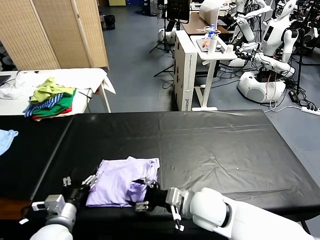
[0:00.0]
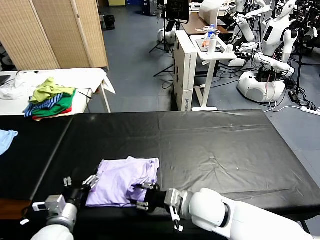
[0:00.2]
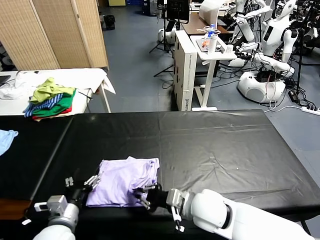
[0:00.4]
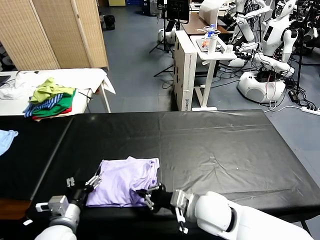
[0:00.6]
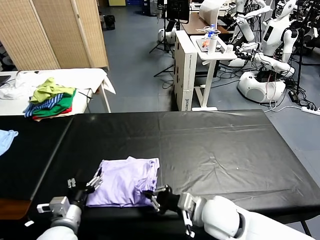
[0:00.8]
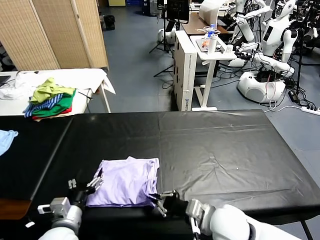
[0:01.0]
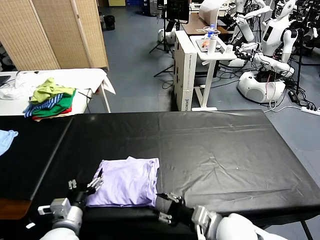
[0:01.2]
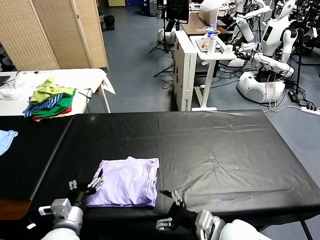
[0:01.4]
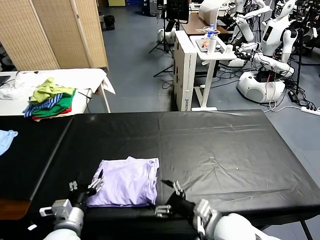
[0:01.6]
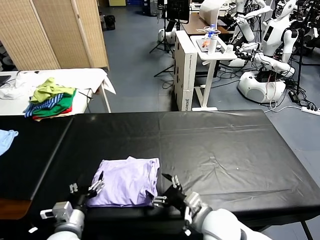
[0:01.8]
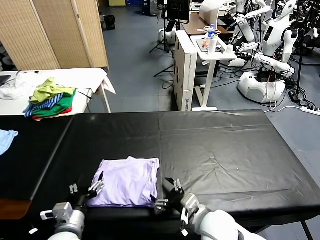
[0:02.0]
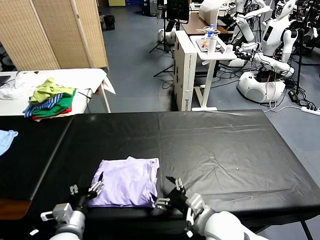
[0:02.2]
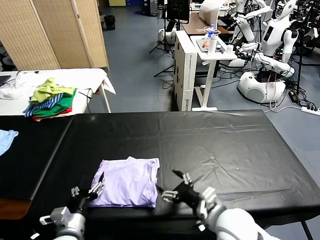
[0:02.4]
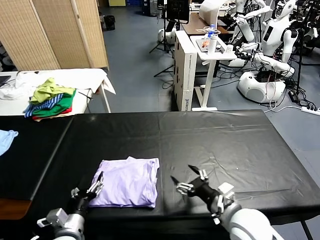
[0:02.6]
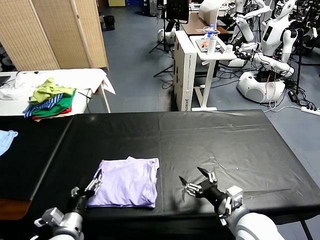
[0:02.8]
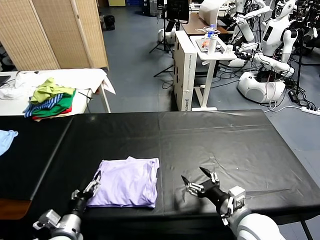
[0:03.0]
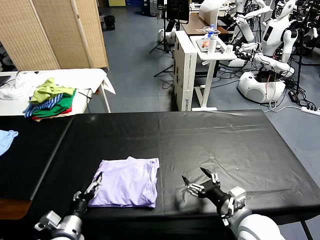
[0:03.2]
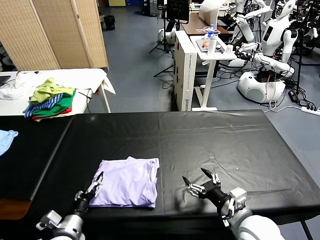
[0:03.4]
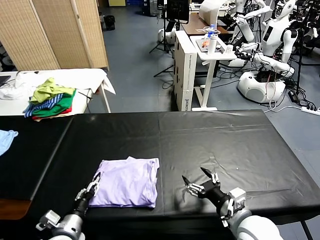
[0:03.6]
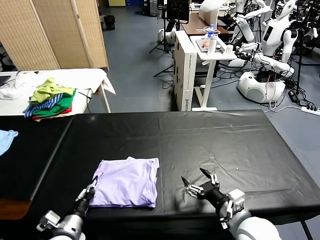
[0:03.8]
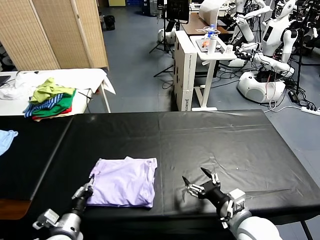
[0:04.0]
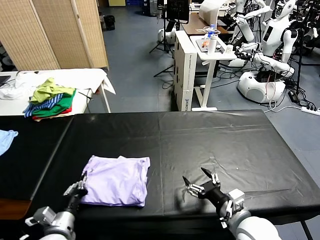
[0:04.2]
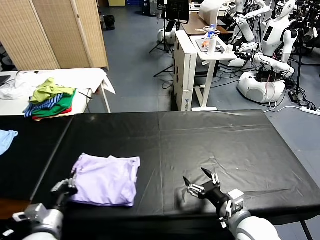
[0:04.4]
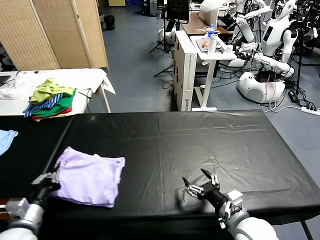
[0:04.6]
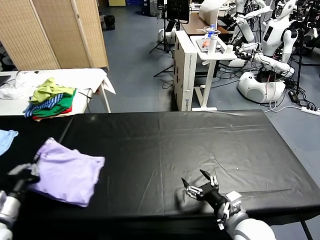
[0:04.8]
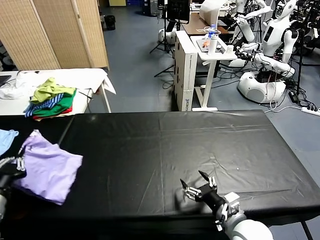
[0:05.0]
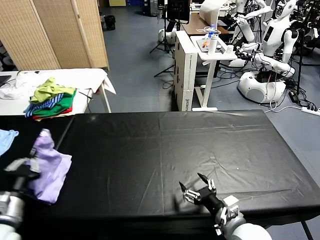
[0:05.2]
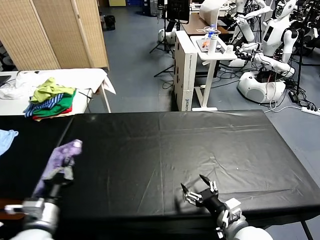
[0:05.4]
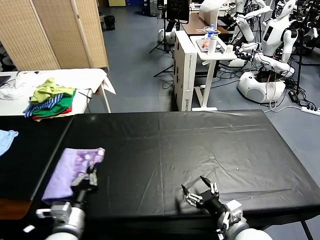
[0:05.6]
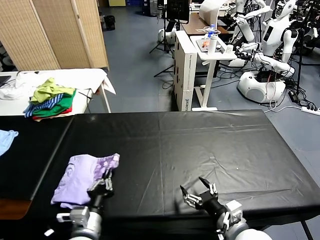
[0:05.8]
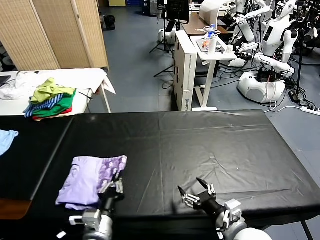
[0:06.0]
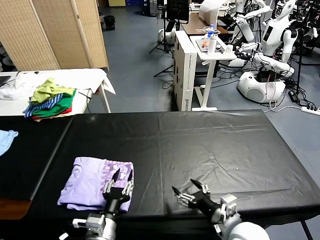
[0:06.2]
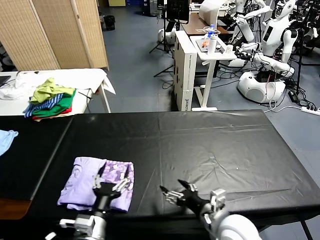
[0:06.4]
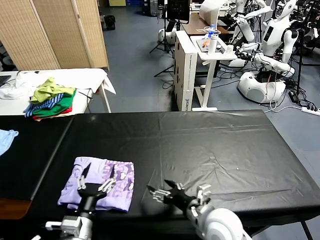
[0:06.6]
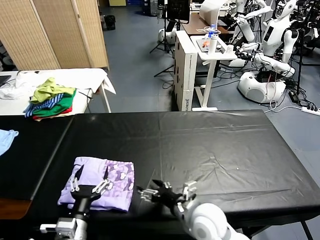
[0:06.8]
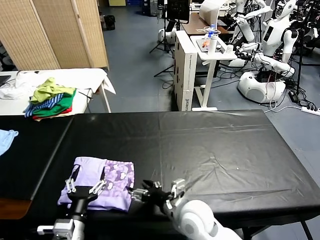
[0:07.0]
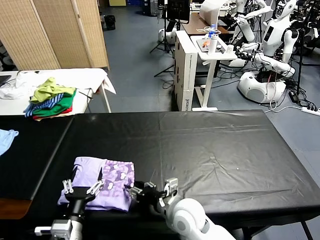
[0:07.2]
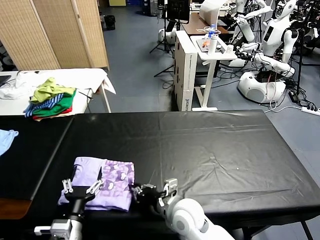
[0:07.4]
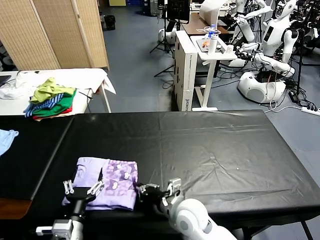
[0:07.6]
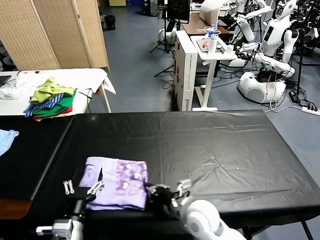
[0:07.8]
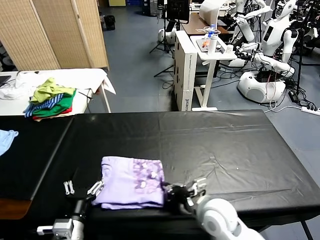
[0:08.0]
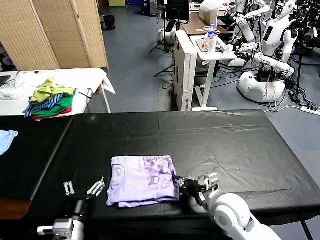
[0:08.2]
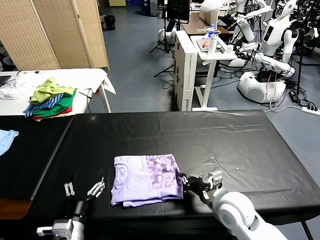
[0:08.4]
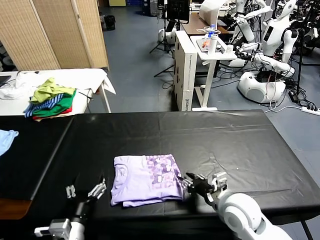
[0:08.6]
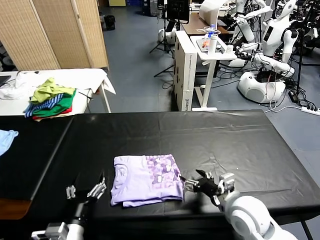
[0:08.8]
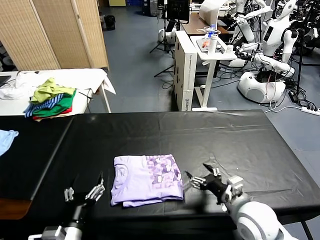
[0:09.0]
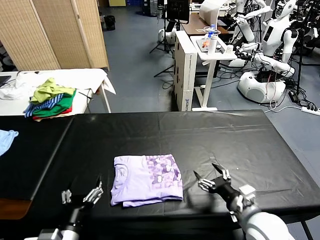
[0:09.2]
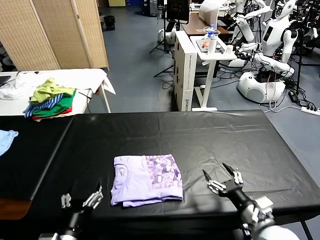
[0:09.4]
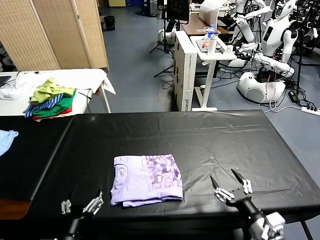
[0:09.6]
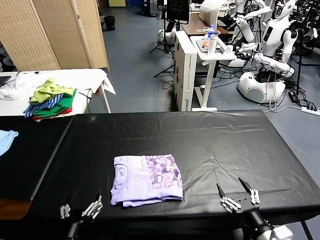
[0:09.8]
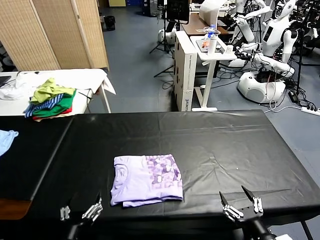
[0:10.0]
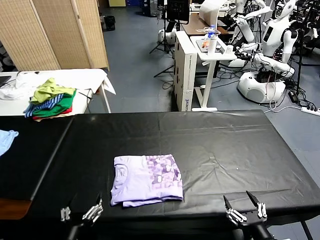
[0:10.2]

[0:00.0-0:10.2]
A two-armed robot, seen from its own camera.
Task of the whole recording: fold and organize the clothes.
Step, 0:00.0 to 0:06.4: Flip the folded clothes over with left gripper.
Step, 0:06.6 to 0:08.6: Drag the clothes to the center of the table.
0:00.0 to 0:01.4: The right gripper heads backward and to the right, covering approximately 10 cm, and closes, then opens again.
0:01.4 to 0:03.0: The right gripper goes about 5 cm to the right.
0:03.0 to 0:04.4: The left gripper closes its fingers.
0:04.4 to 0:05.8: The left gripper shifts about 10 cm to the right.
0:05.8 to 0:07.2: The left gripper opens its fingers; the right gripper travels to the left and forward by some 15 cm.
0:07.2 to 0:08.8: The right gripper moves to the right, some 15 cm, and closes, then reopens.
0:08.8 to 0:10.2: The left gripper goes some 5 cm backward. Meanwhile the right gripper is displaced backward and to the right by about 20 cm.

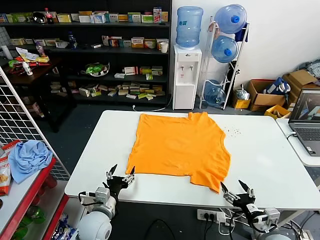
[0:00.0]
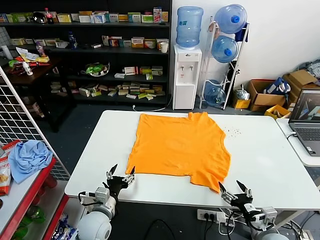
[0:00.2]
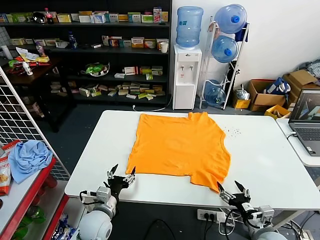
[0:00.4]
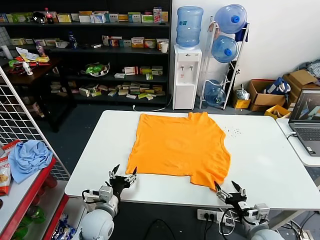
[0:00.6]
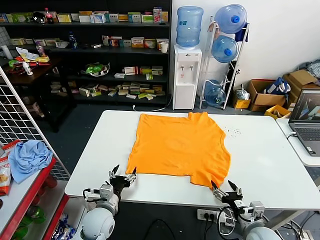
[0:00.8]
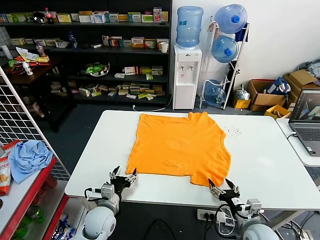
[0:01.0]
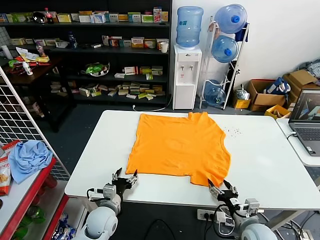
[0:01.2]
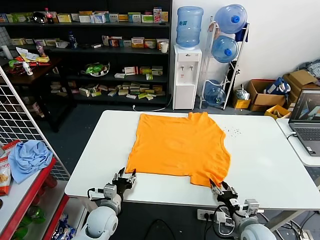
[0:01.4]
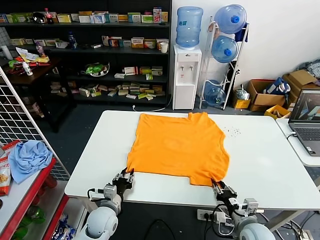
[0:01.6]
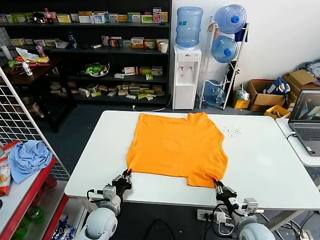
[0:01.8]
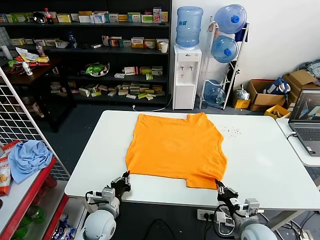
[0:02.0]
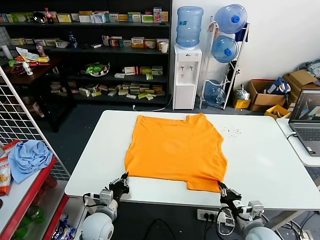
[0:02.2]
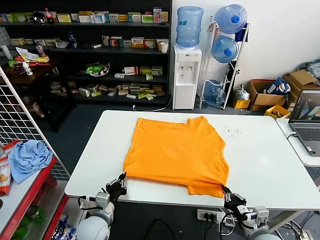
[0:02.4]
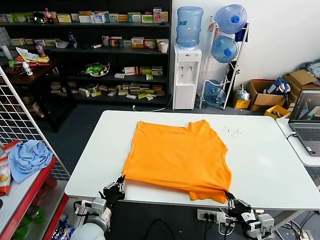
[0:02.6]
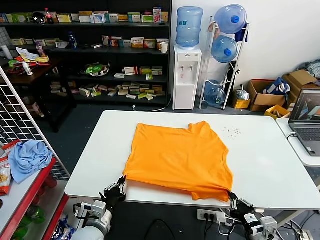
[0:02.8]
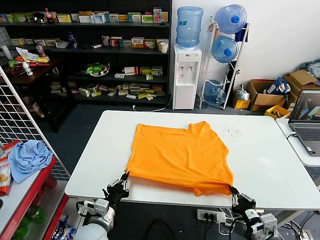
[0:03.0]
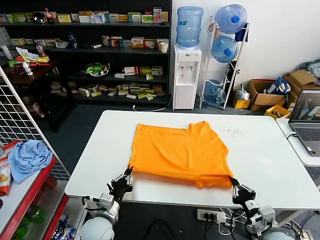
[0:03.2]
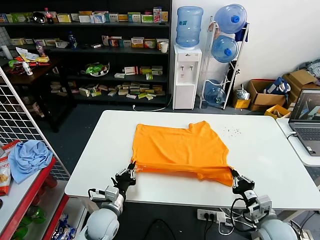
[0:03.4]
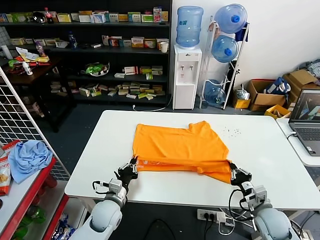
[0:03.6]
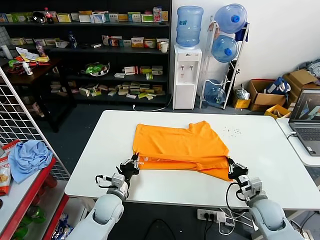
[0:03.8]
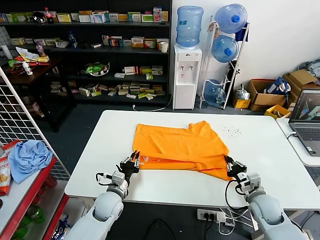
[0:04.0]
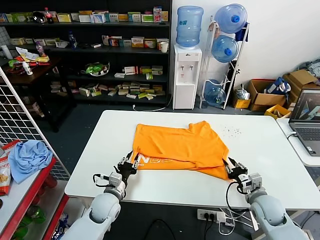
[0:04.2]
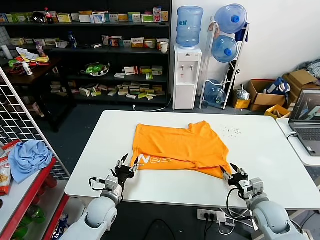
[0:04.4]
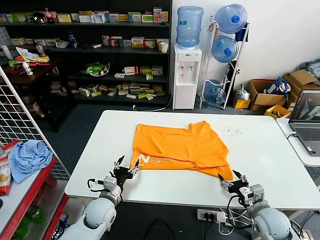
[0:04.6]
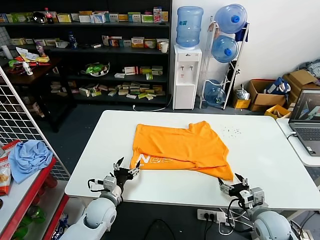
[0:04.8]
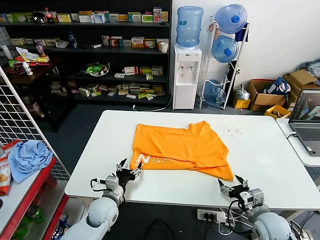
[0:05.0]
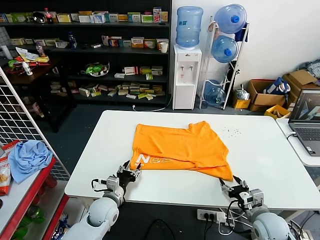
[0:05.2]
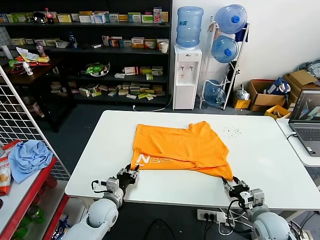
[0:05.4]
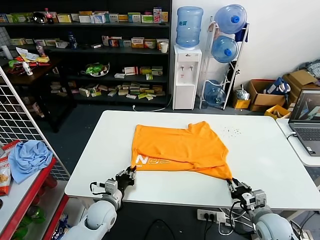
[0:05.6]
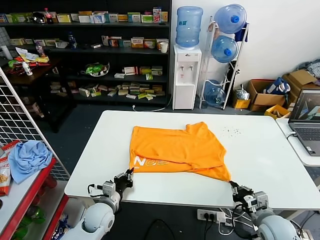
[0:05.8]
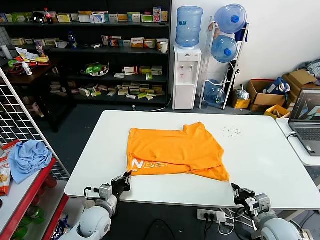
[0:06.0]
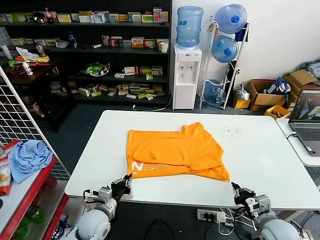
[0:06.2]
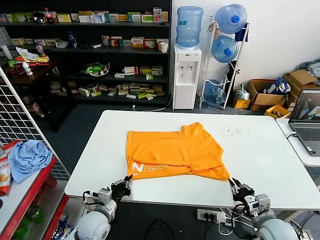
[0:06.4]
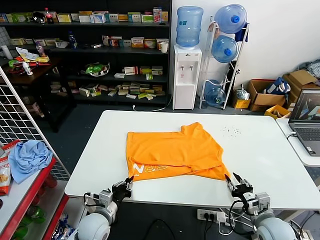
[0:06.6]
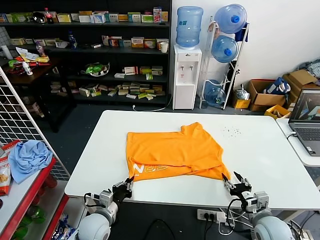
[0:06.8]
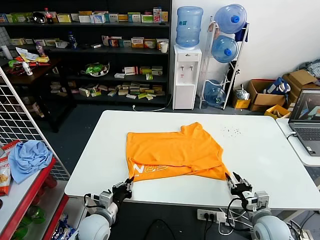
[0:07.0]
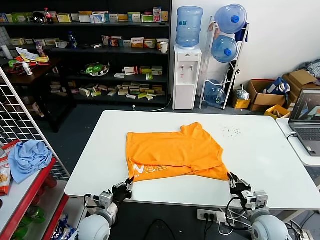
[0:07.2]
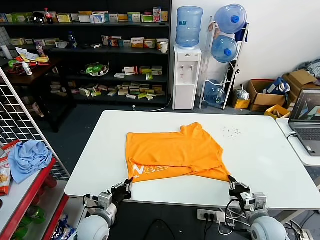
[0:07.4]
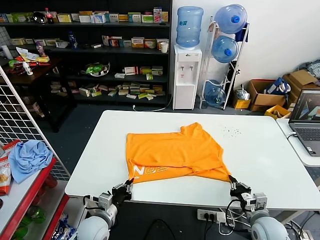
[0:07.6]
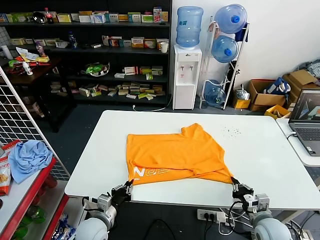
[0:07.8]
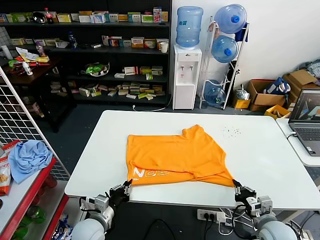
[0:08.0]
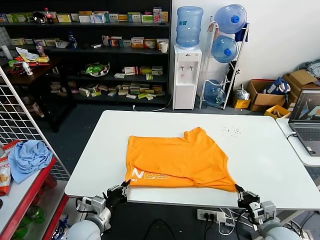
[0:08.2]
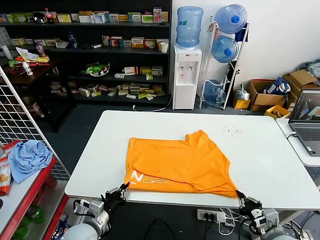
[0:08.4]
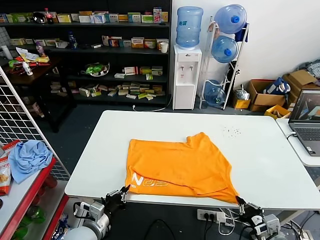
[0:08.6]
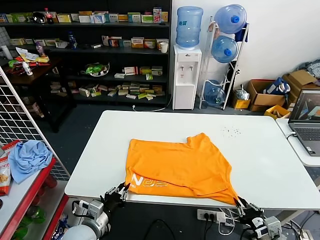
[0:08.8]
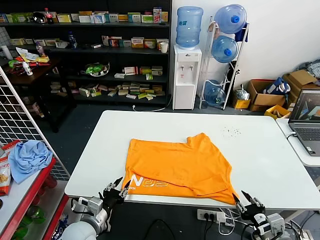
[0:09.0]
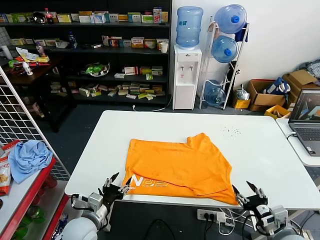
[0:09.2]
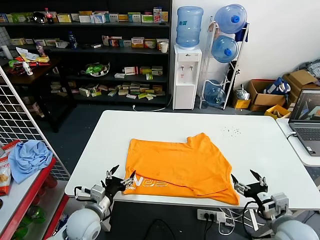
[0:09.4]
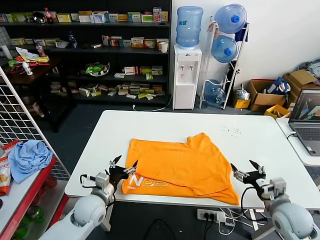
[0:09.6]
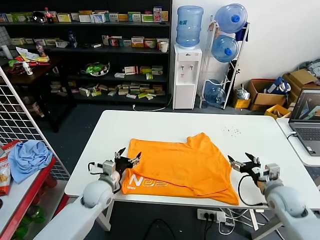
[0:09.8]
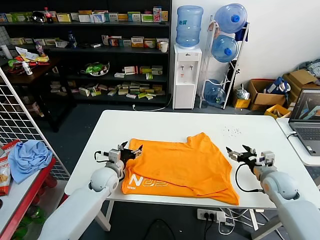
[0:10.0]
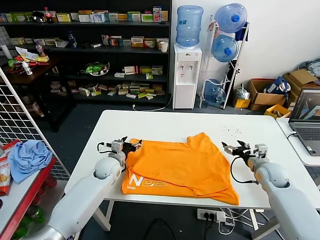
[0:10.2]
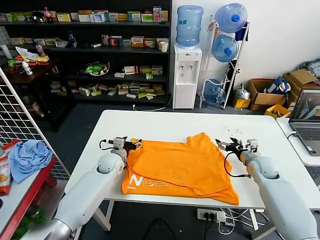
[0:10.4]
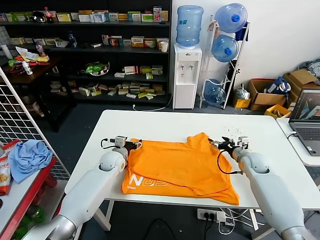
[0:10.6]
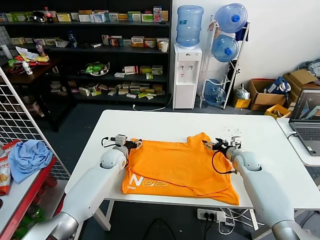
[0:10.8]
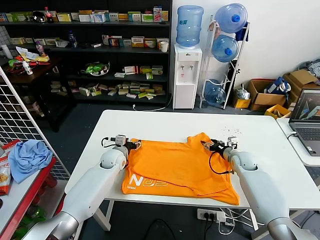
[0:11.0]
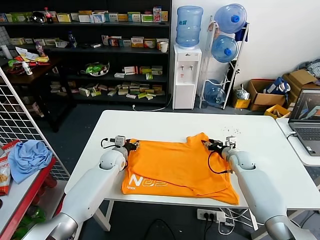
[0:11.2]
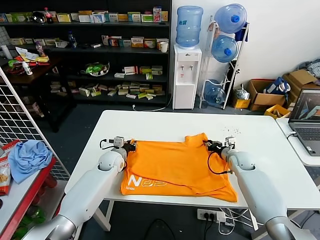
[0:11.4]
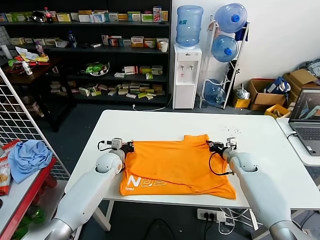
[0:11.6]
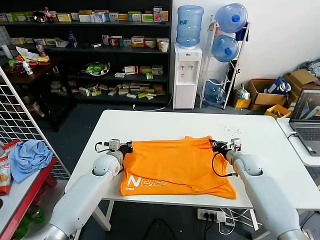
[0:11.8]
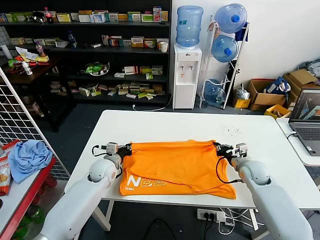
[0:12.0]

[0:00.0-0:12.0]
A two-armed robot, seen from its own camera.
Task of the whole recording: fold and organize the clothes.
Step, 0:00.0 to 0:02.0: use both grippers simultaneously to clamp the lower edge of the clothing fabric.
Step, 0:02.2 to 0:04.2: use both grippers to drag the lower edge of the fabric forward and fold it over the upper edge.
Step, 0:04.4 to 0:08.8: Drag the clothes downward with both gripper.
Step, 0:09.0 to 0:11.6: use both grippers simultaneously to clamp the upper edge of the clothing fabric.
0:01.6 to 0:03.0: The right gripper moves backward and upward, roughly 10 cm; the left gripper moves backward, about 5 cm, and closes its fingers.
0:03.0 to 0:04.4: The grippers both shift forward by some 10 cm. The left gripper opens up, while the right gripper opens.
0:04.4 to 0:06.0: The left gripper closes up. The right gripper closes its fingers.
0:06.0 to 0:07.6: The right gripper opens, then closes once more.
0:07.6 to 0:09.0: The right gripper is displaced backward and upward by about 10 cm, and opens, while the left gripper shifts by about 5 cm, and opens up.
0:09.0 to 0:10.4: The grippers both shift forward by about 25 cm. The right gripper opens up, while the left gripper opens up.
0:10.4 to 0:12.0: The right gripper closes up, while the left gripper closes up.
